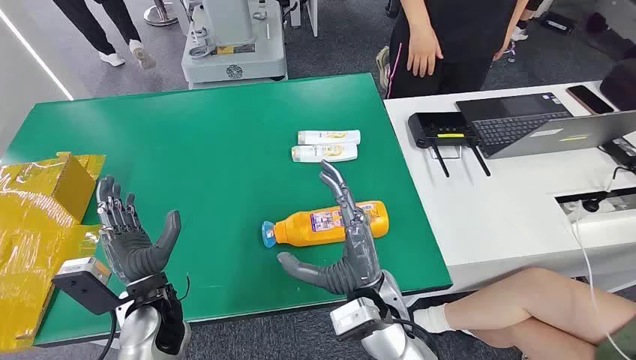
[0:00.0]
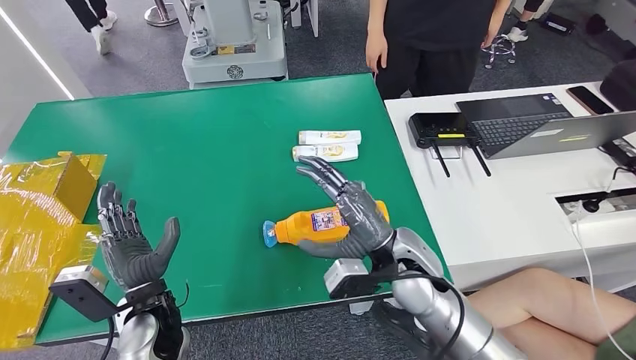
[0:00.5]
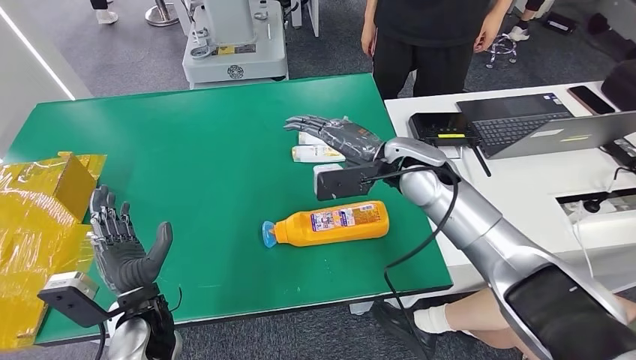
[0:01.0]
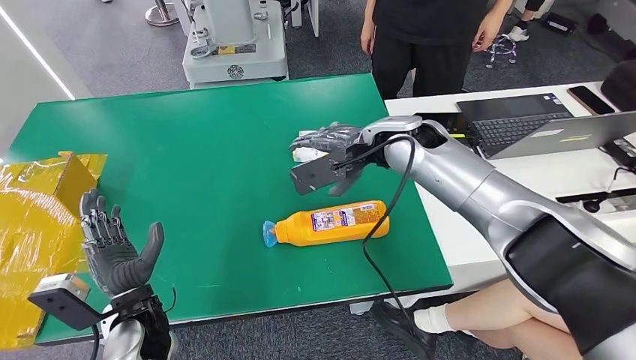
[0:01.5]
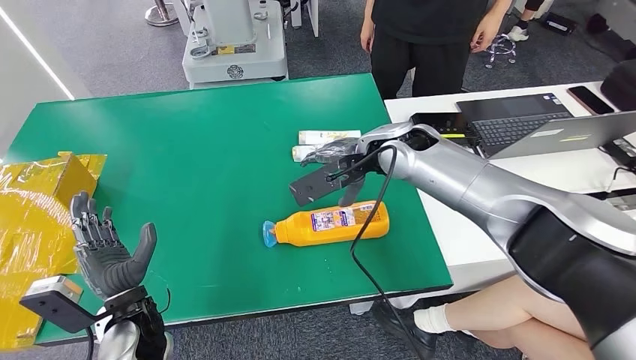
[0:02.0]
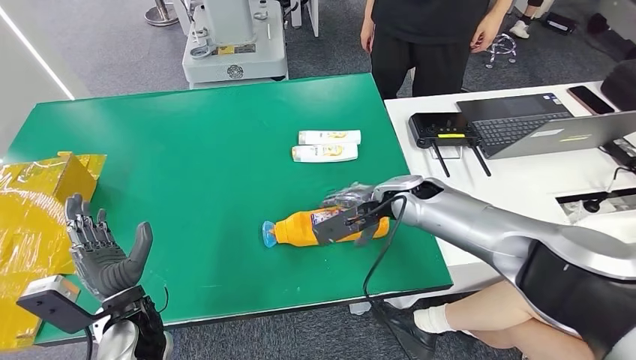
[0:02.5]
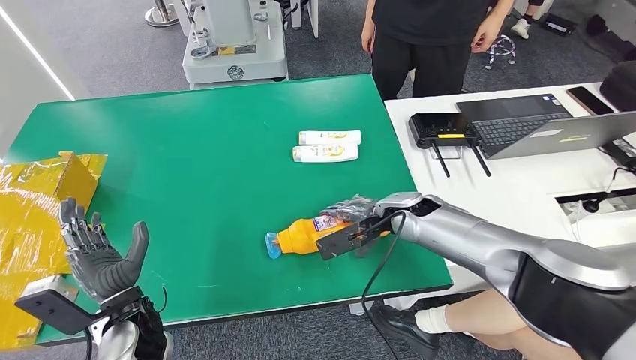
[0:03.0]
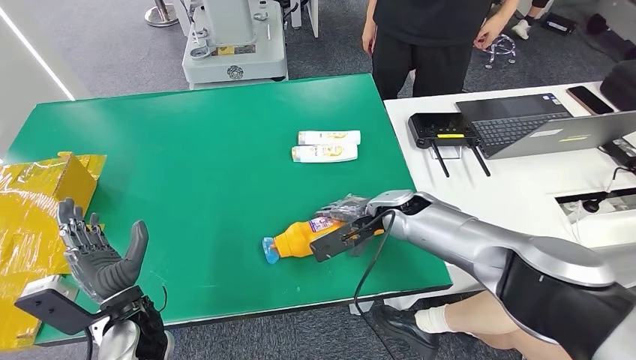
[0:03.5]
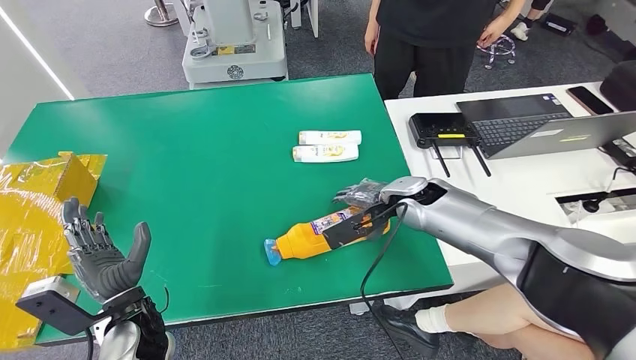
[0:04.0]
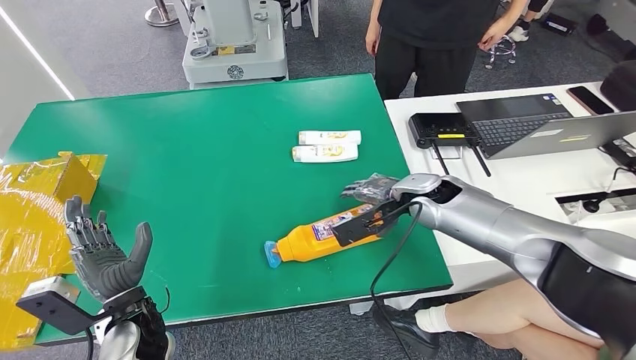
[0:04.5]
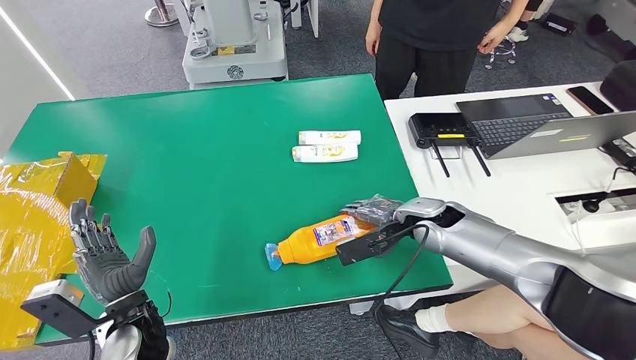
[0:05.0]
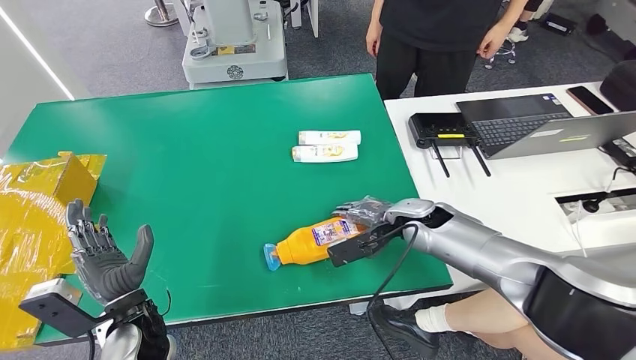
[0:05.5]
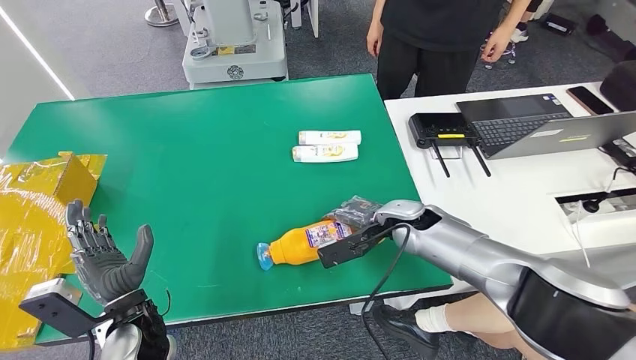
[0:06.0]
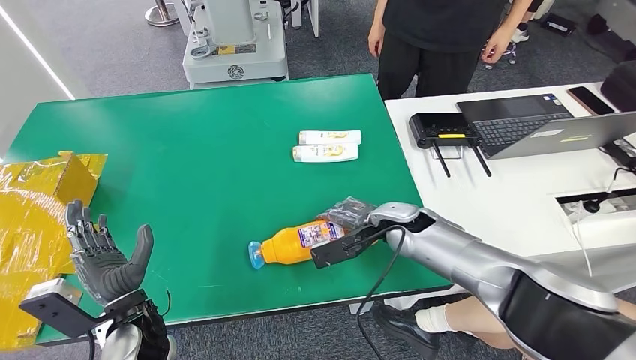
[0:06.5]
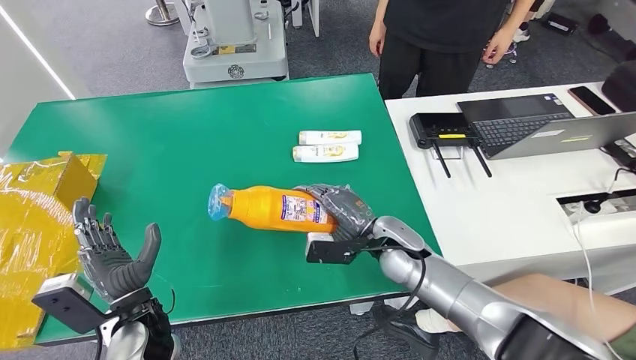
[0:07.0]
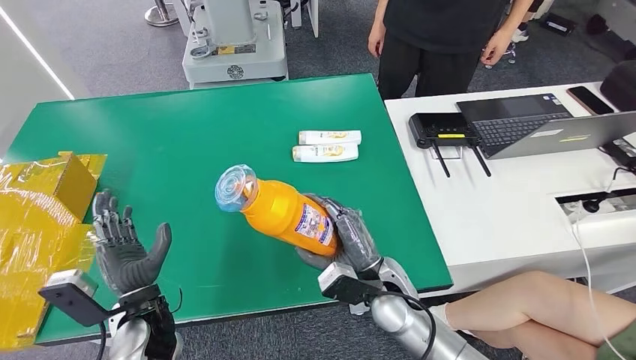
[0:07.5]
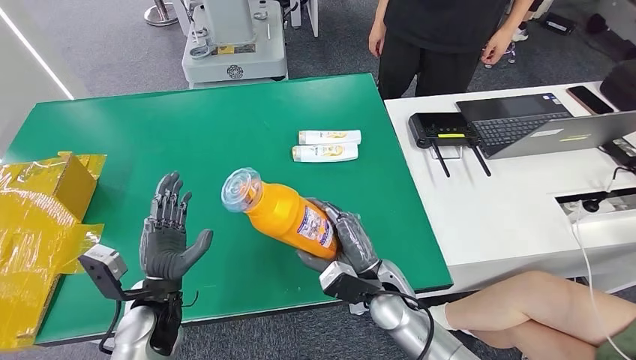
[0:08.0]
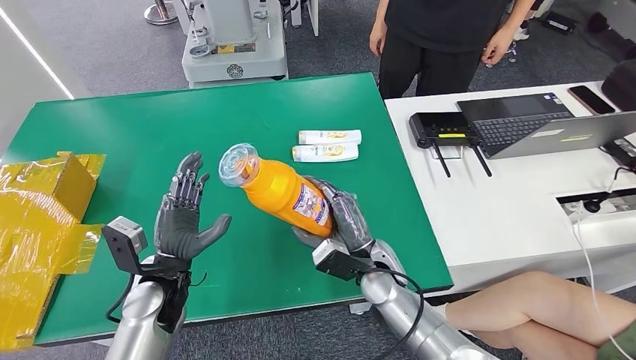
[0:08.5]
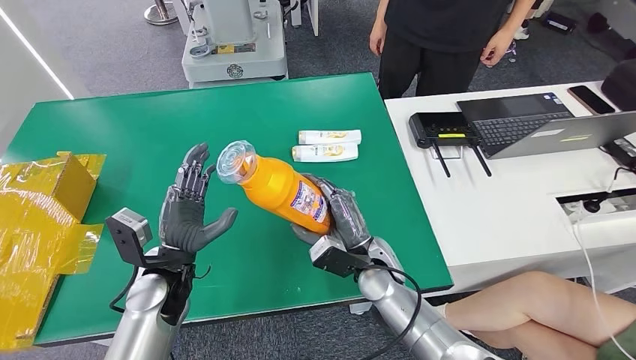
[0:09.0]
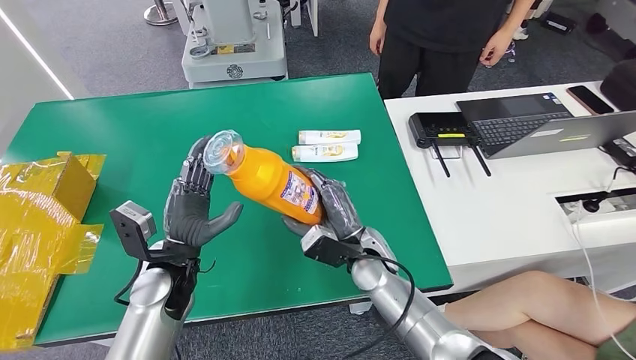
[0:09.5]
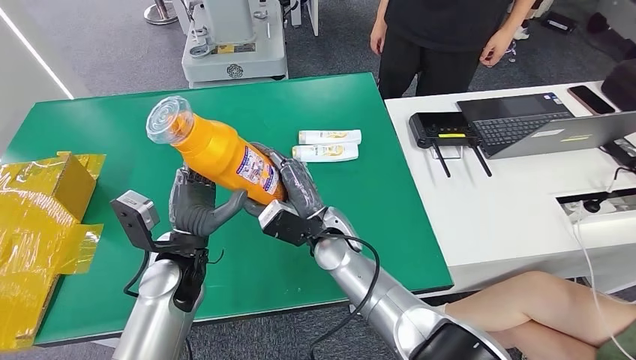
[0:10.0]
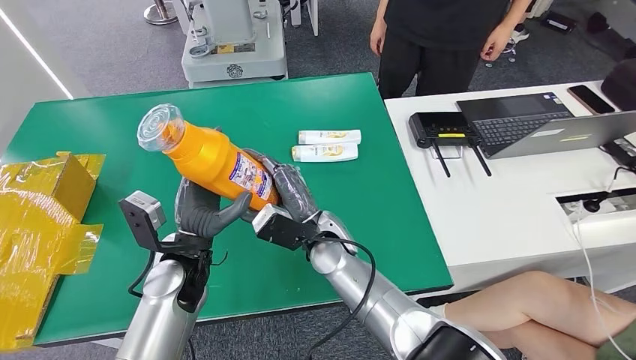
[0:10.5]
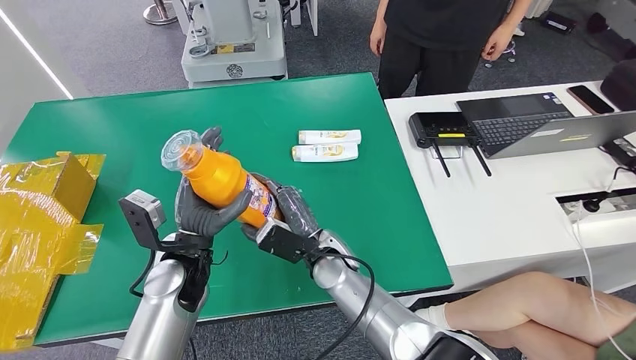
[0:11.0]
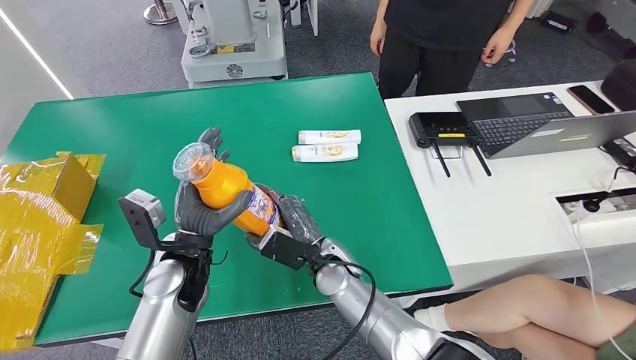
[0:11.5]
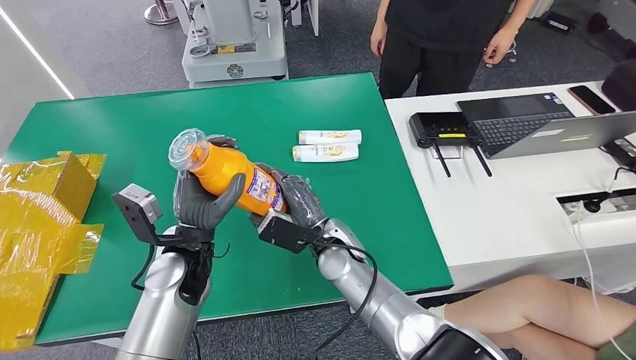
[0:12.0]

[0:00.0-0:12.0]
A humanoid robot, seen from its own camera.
Step, 0:00.0 to 0:07.5: Pick up the bottle from the table.
0:02.0 to 0:04.0: The right hand goes some 10 cm downward and to the right.
0:04.0 to 0:06.0: The right hand goes about 5 cm downward.
0:08.0 to 0:10.0: The left hand moves upward and to the right, roughly 10 cm; the right hand shifts some 15 cm to the left, forward and upward.

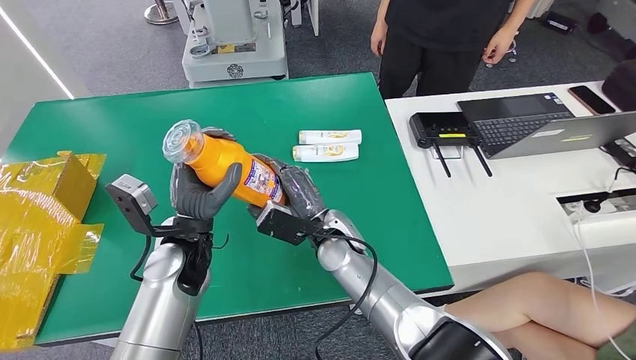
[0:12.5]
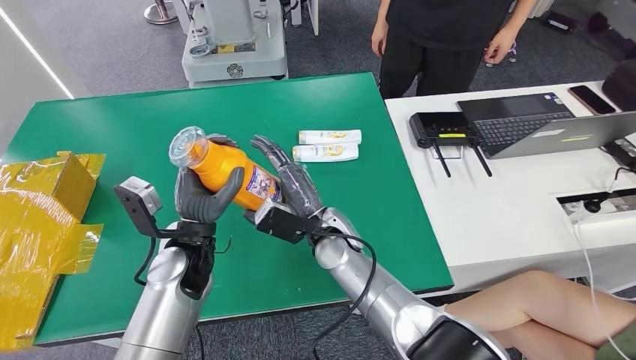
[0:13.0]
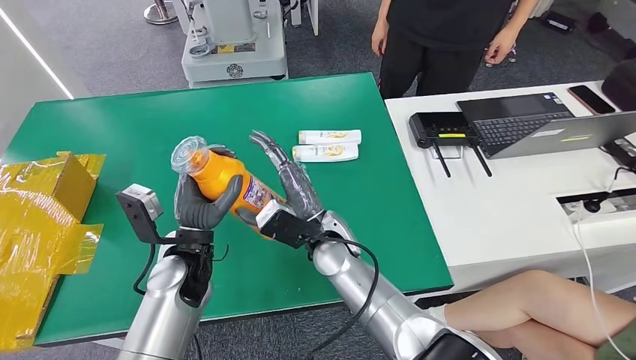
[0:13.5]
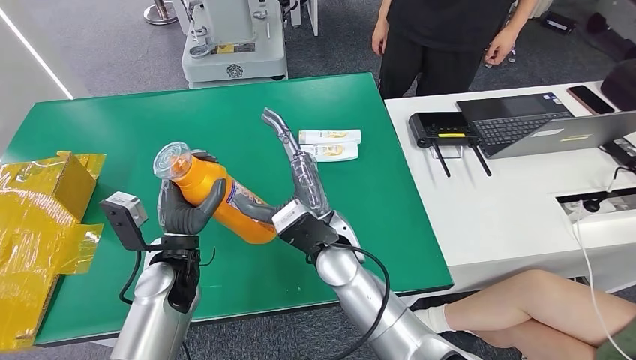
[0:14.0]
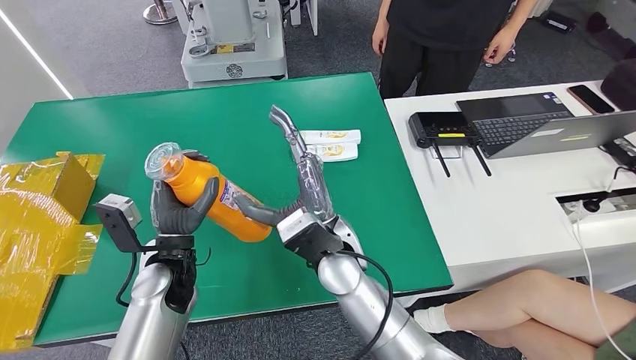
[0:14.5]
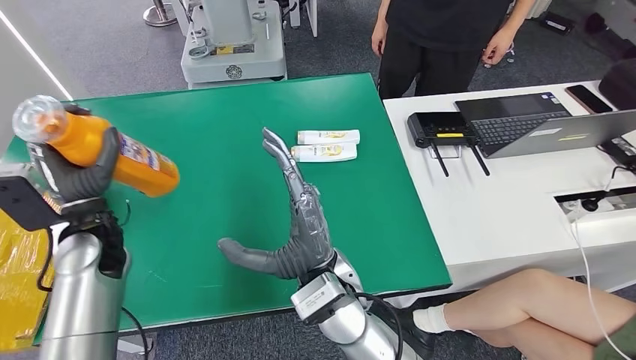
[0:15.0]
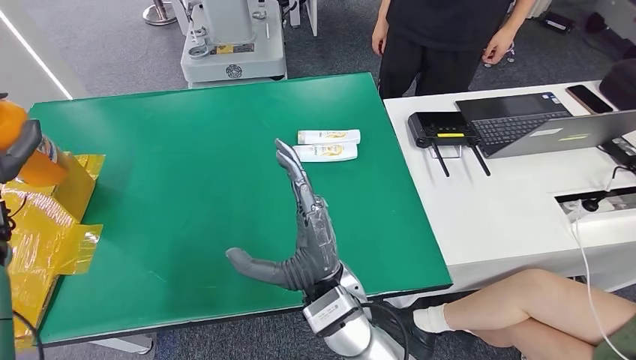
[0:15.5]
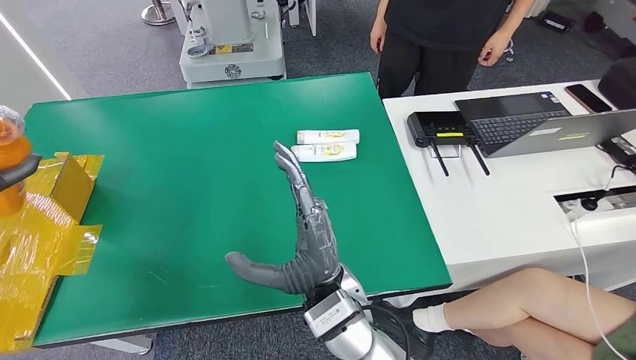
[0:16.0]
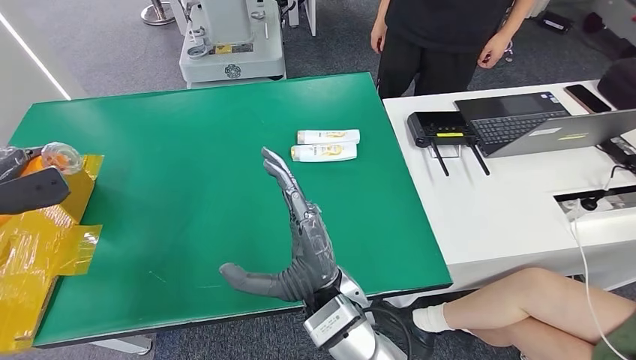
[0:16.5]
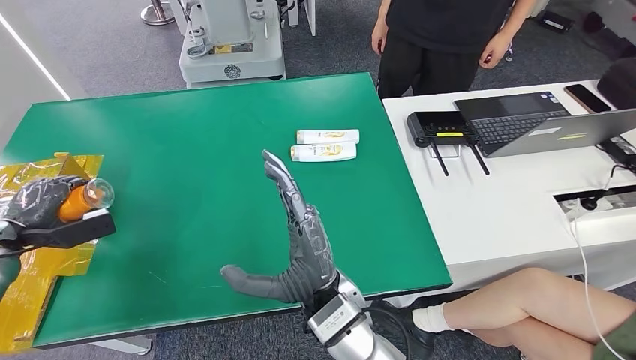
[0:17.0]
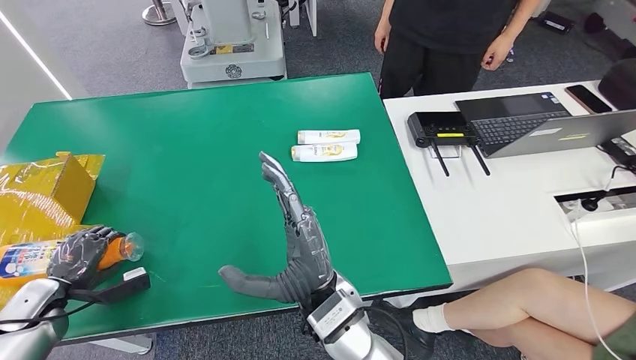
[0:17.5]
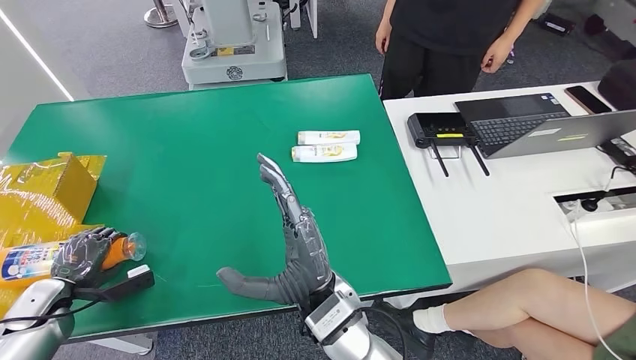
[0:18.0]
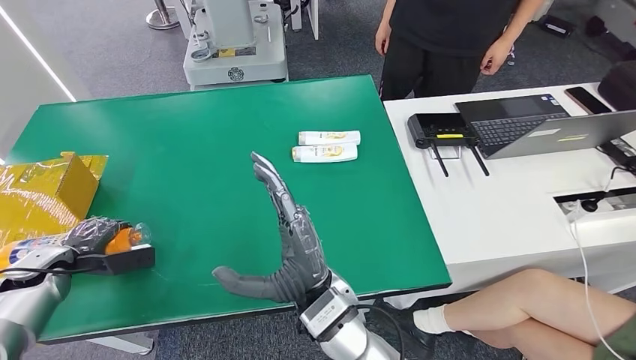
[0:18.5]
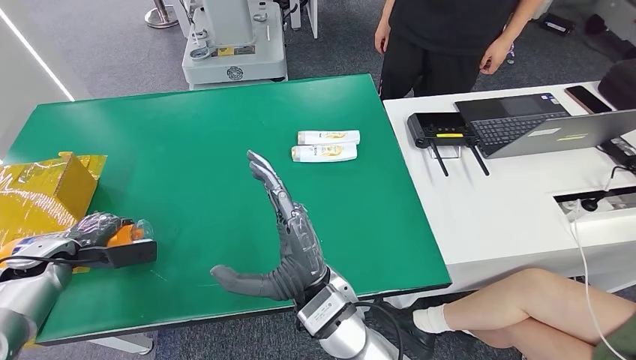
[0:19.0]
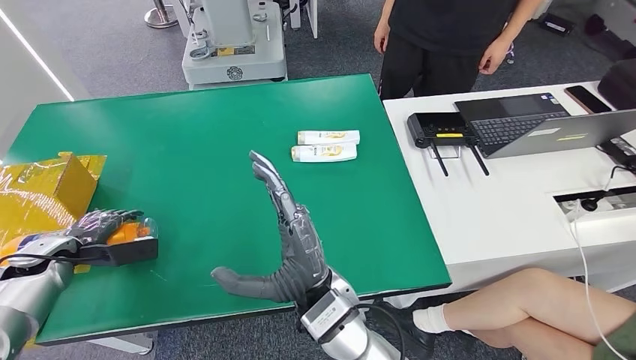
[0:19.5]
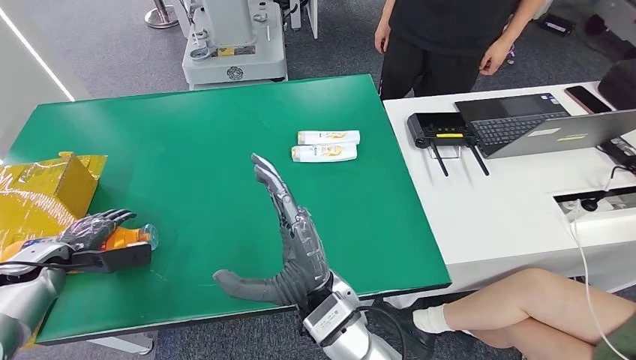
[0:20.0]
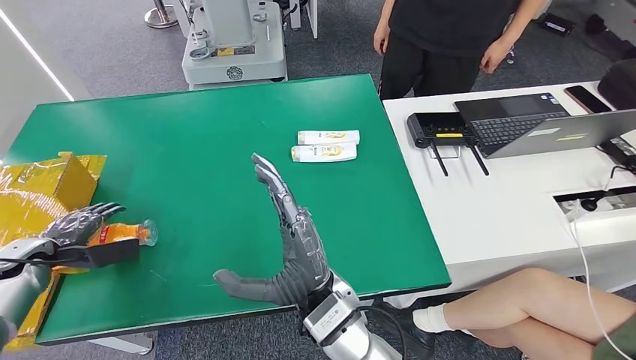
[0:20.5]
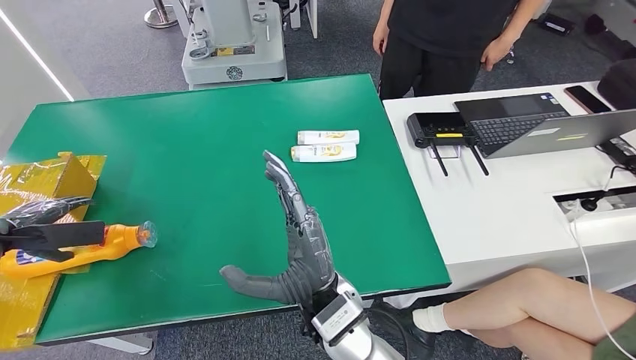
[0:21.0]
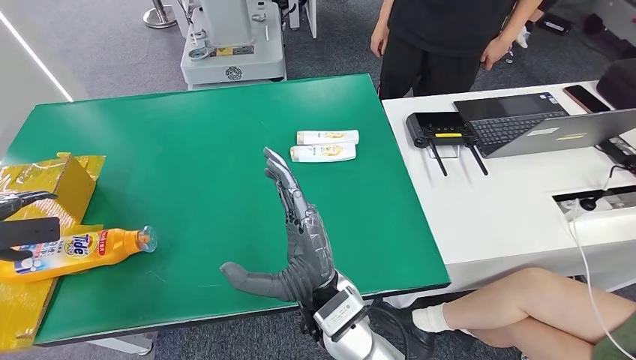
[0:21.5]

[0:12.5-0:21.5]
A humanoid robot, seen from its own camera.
Step, 0:12.5 to 0:21.5: Turn the bottle to the front side.
0:12.5 to 0:14.5: The right hand goes approximately 5 cm upward.
0:19.5 to 0:21.5: The left hand moves to the left and upward, approximately 15 cm.
